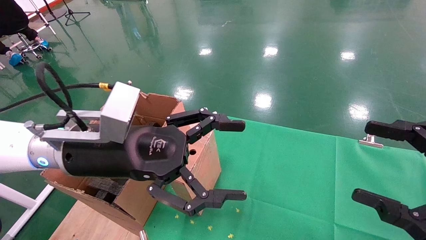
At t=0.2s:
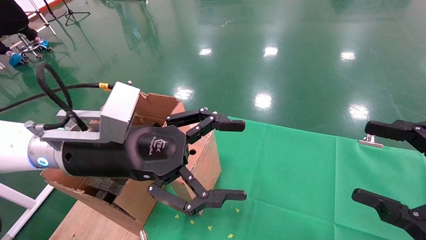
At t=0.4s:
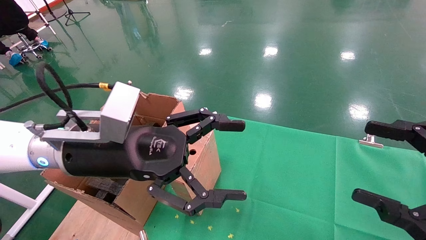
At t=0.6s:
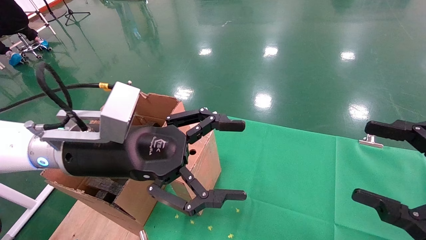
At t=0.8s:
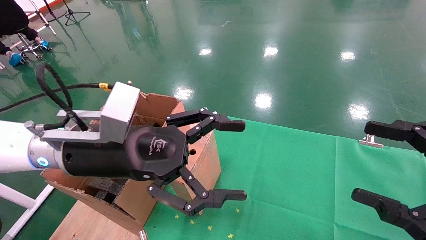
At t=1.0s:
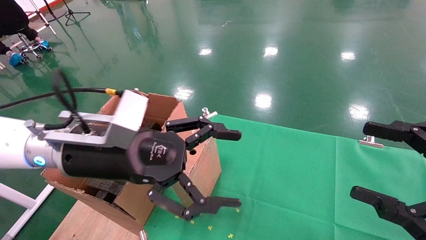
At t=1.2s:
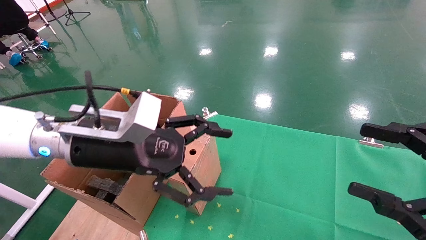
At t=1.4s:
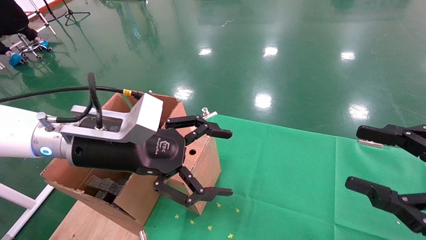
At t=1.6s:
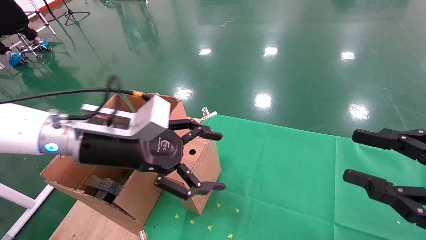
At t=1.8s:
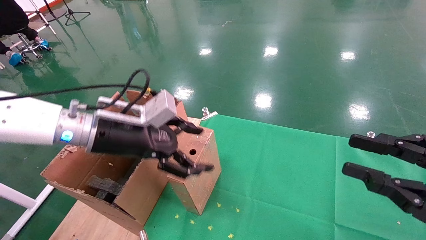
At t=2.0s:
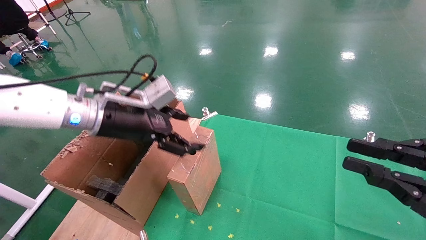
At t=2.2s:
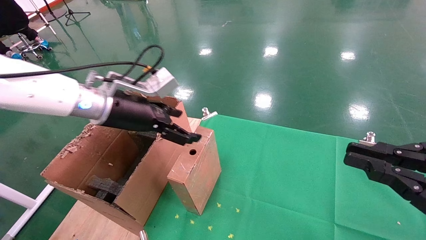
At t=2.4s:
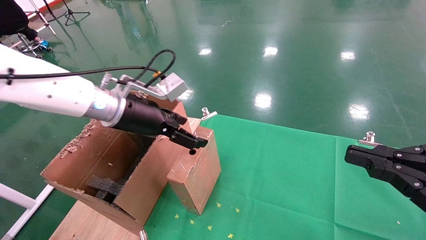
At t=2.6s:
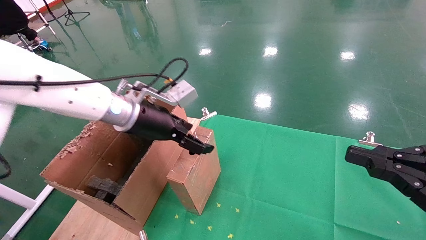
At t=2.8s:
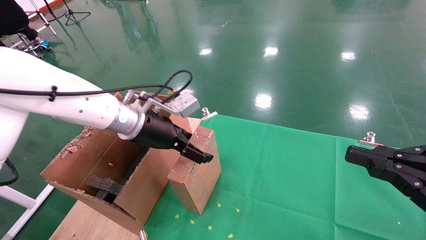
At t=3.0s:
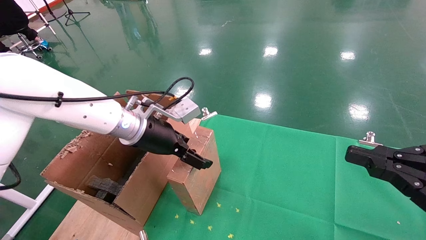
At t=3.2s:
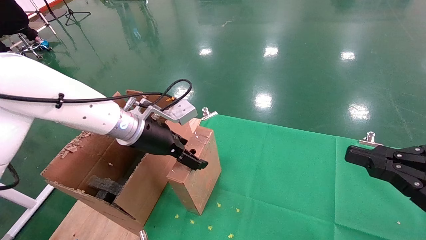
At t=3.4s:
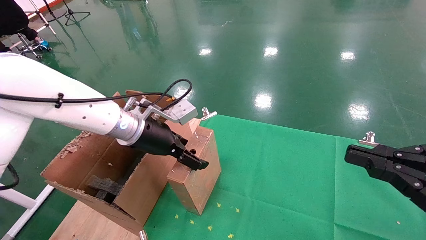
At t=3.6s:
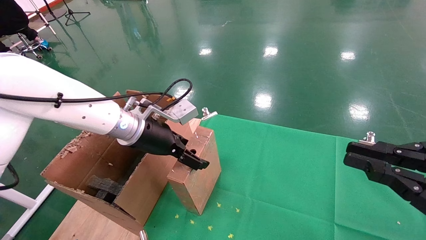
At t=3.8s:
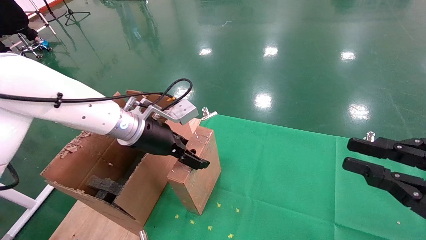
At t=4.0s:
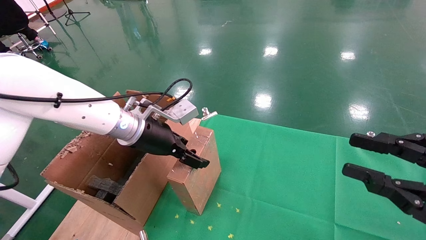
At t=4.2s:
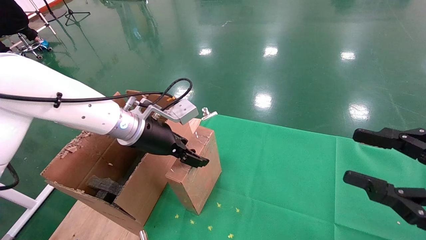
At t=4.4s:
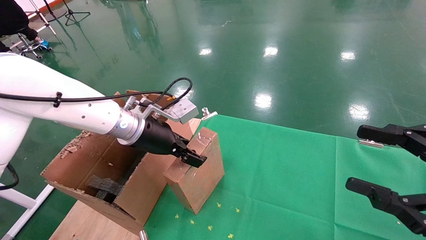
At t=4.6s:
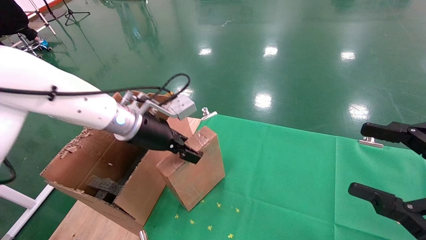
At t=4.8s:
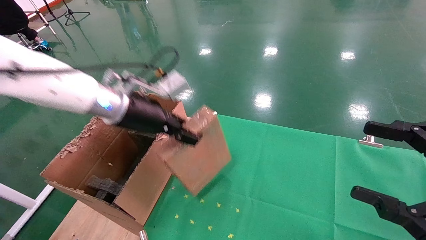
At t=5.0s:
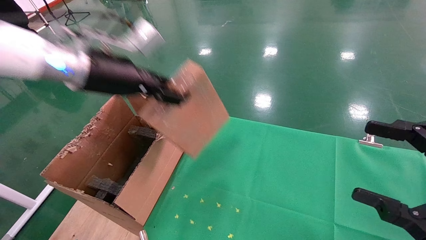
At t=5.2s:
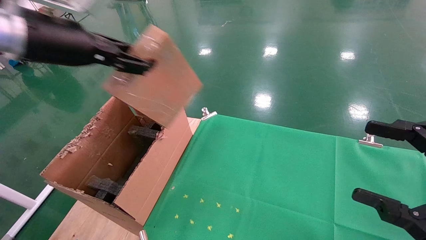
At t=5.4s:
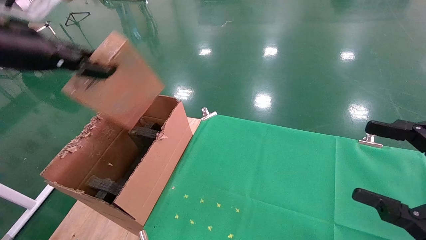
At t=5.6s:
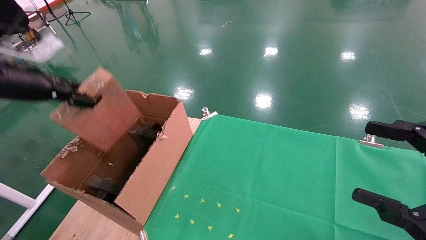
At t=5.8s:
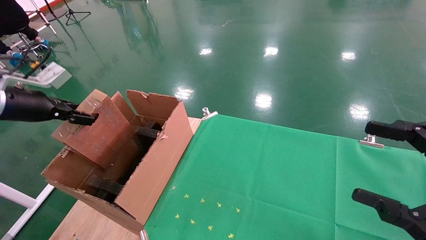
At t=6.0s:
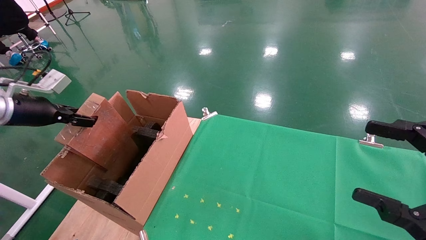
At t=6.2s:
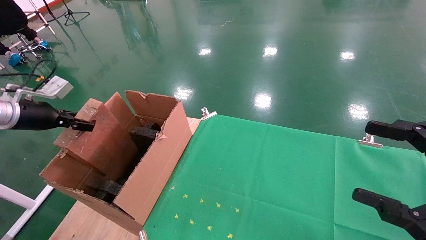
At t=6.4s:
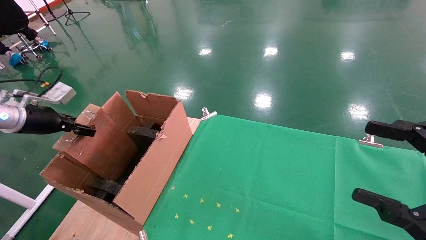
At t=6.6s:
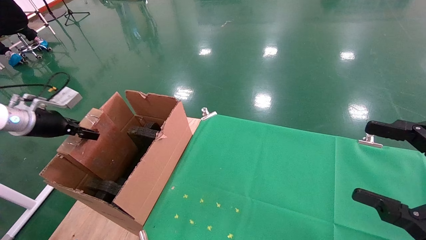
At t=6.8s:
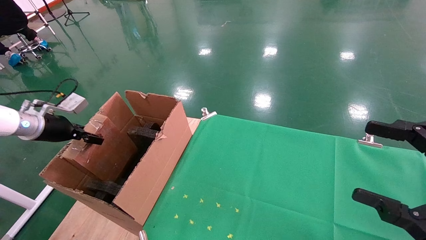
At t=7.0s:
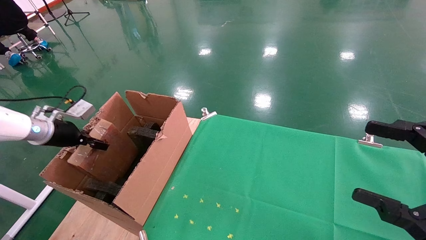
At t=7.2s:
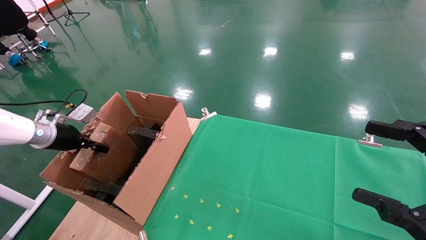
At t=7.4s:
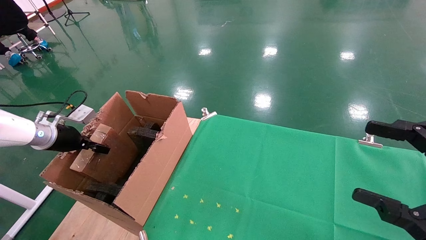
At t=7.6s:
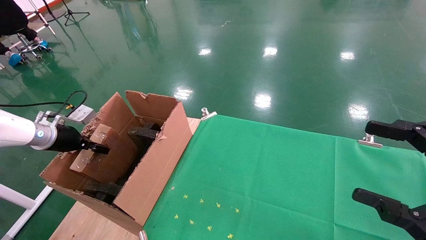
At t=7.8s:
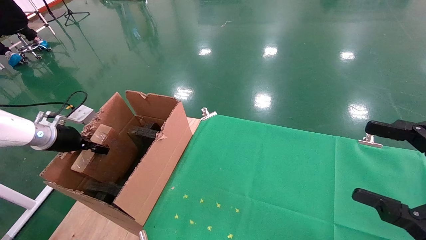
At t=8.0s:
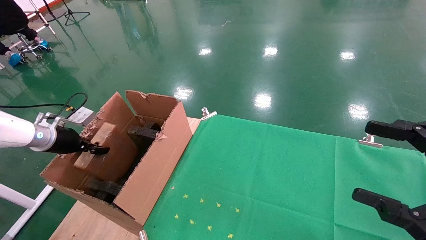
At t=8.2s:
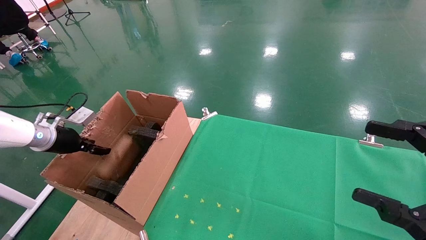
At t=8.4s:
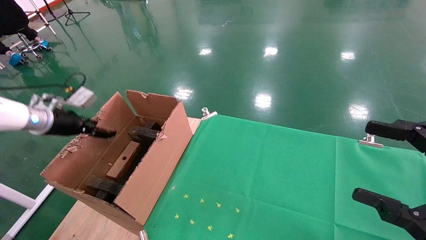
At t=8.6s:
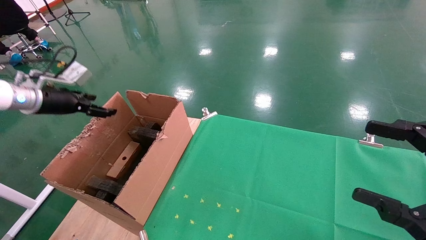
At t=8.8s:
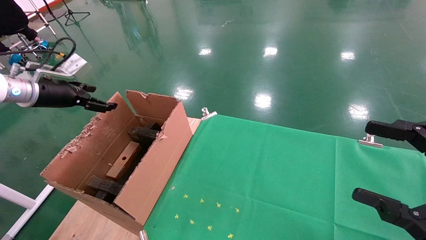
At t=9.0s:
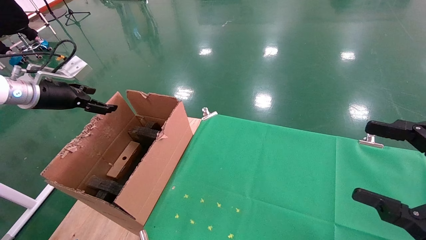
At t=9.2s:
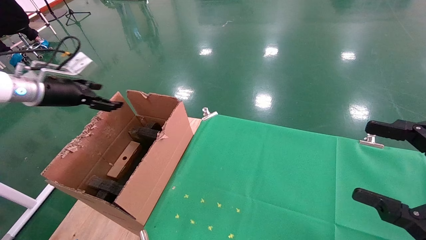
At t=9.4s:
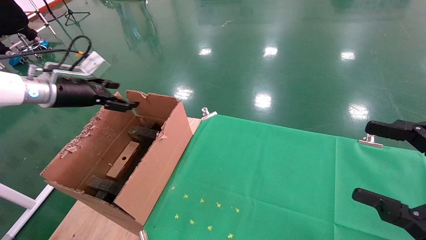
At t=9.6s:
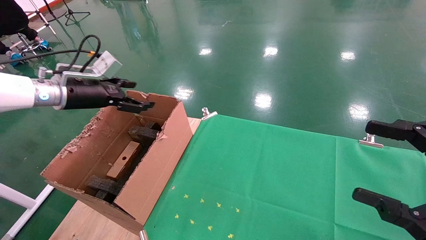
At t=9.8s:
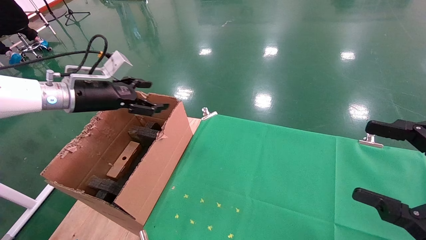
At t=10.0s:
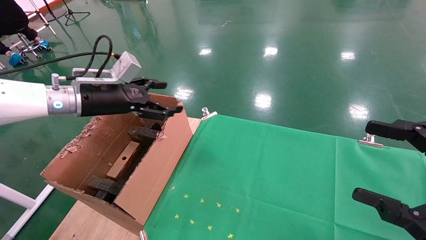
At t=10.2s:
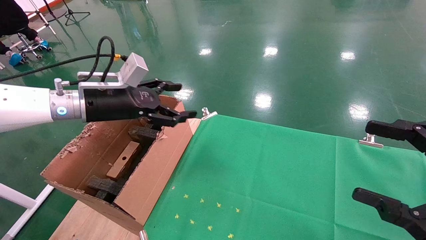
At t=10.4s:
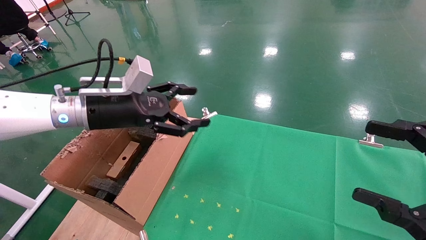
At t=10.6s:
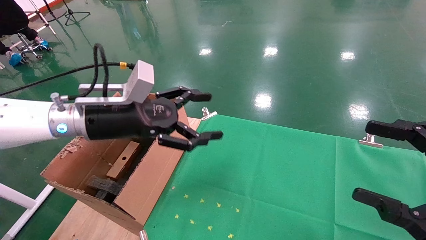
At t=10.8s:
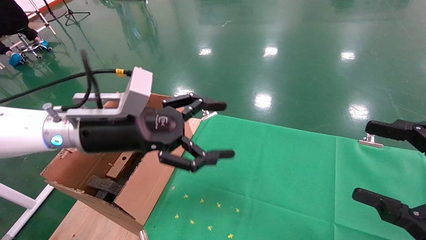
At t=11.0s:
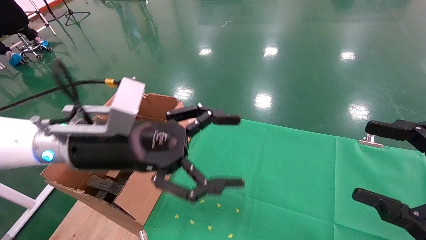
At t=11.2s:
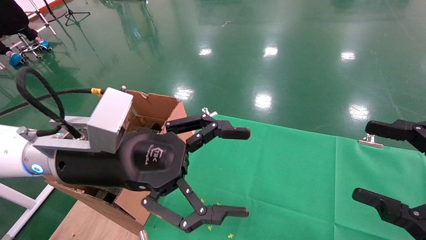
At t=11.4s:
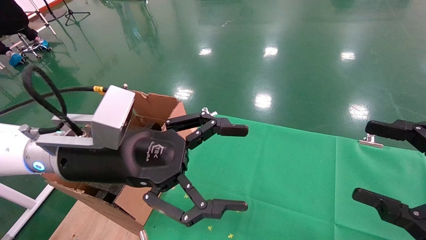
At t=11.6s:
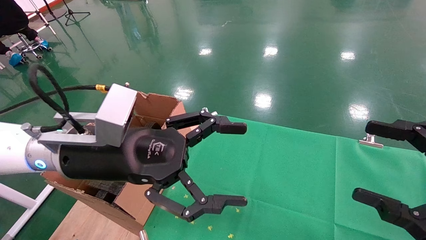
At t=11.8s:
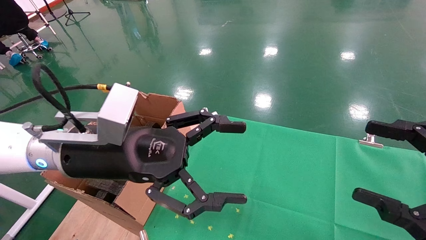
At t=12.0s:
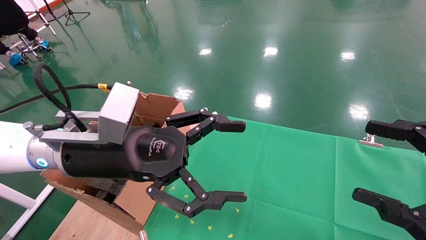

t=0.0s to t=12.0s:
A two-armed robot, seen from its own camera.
Task of the whole recording: using a robotic arm to pick up a cardboard box and palace it the carton.
Step, t=1.4s to t=4.4s: Pick up the mouse and the power cord paper box.
Step, t=4.6s to t=8.0s: Place the mouse and the power cord paper box into the container.
t=1.6s to t=3.0s: The right gripper closes up. Meanwhile the left gripper is displaced forward by approximately 10 cm.
t=3.0s to t=4.4s: The left gripper closes its fingers, while the right gripper opens its fingers.
t=4.4s to t=6.0s: The left gripper heads to the left, covering about 30 cm. The right gripper opens.
t=6.0s to t=7.6s: The left gripper moves downward and forward, approximately 10 cm.
t=7.6s to t=9.0s: The left gripper goes roughly 10 cm upward, and opens.
t=9.0s to t=10.4s: The left gripper heads to the right, covering some 20 cm.
t=10.4s to t=12.0s: The left gripper travels backward and to the right by some 10 cm.

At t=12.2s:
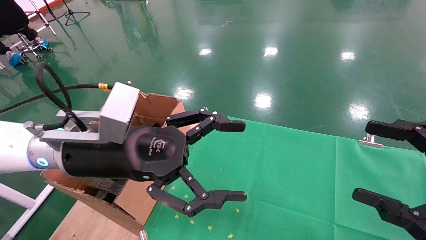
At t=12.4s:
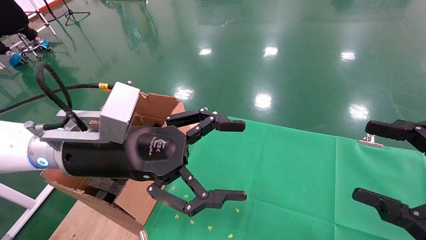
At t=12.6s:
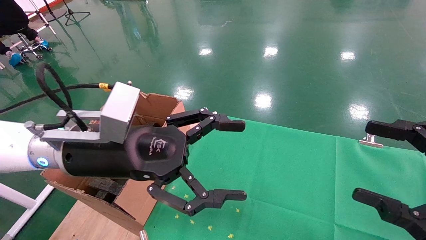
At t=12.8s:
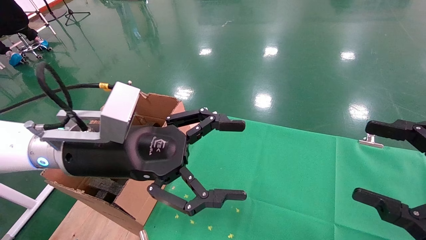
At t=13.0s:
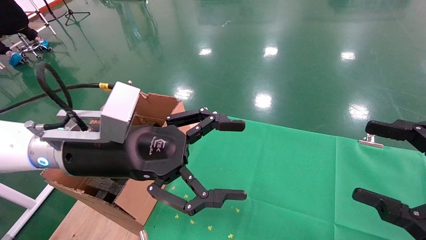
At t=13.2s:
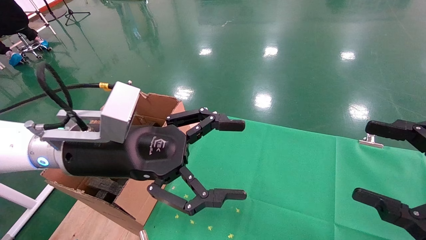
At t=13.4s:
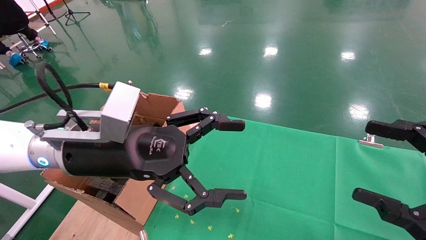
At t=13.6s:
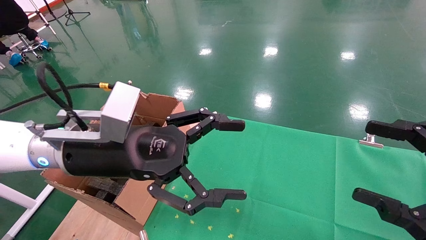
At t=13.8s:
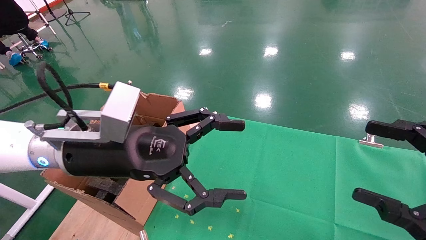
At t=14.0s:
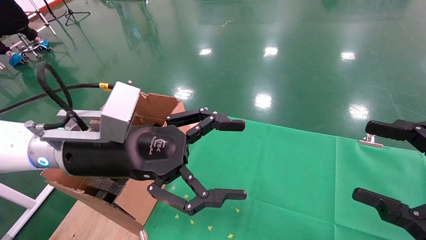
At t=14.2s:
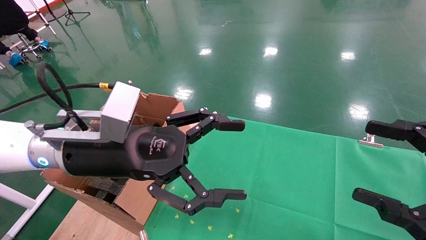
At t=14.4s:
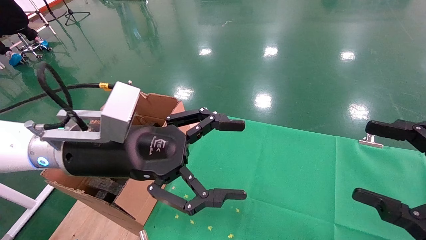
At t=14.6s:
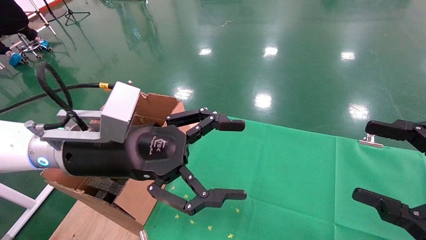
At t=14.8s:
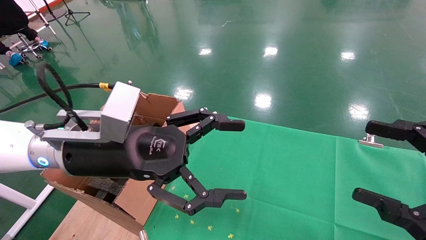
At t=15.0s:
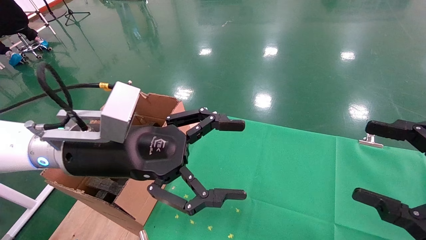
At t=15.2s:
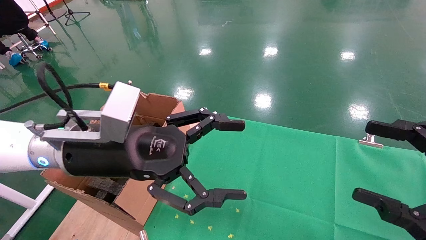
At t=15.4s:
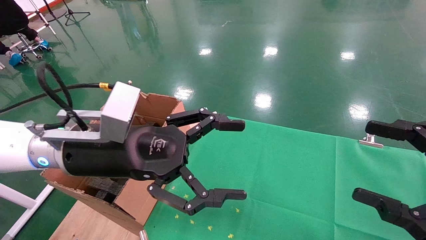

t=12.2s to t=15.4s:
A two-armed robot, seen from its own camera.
Task of the whole recording: using a robotic arm to pick up a cardboard box and palace it the carton.
t=12.2s to t=15.4s: Neither gripper changes place.
